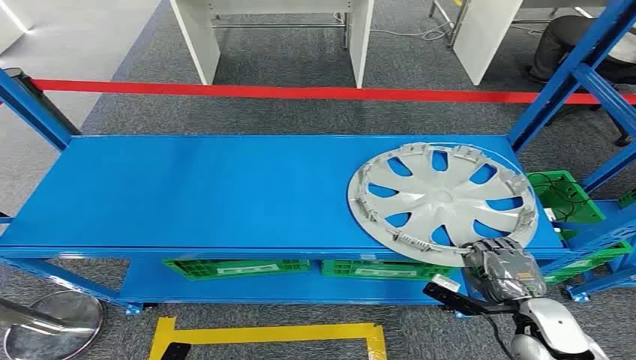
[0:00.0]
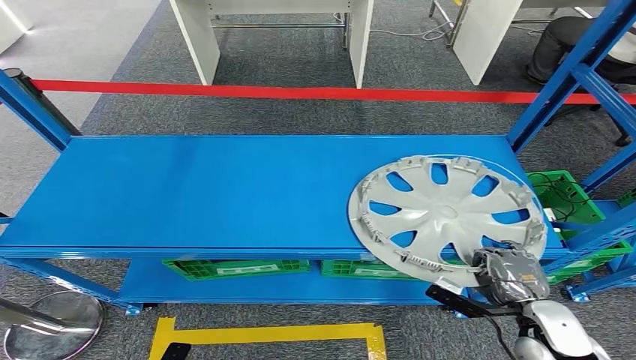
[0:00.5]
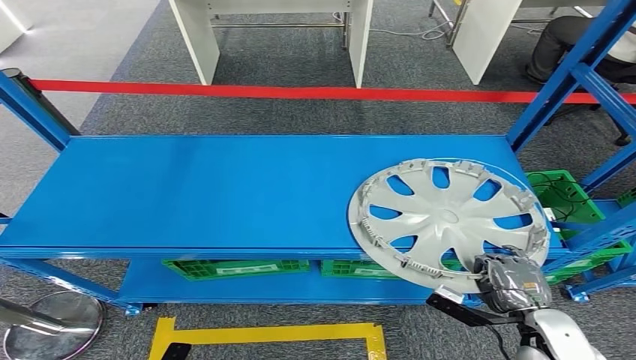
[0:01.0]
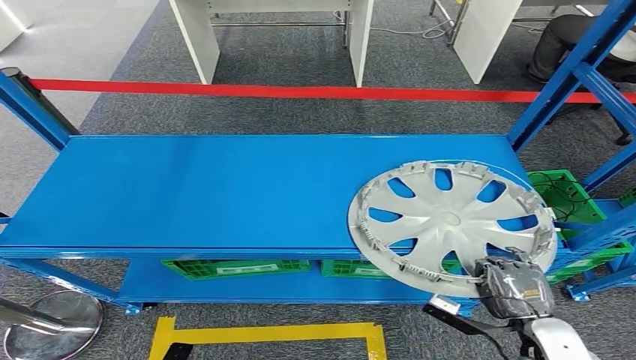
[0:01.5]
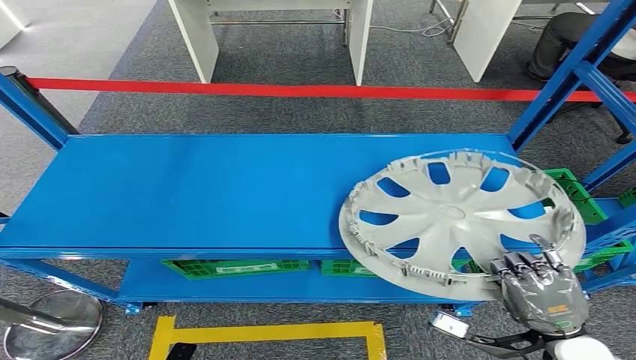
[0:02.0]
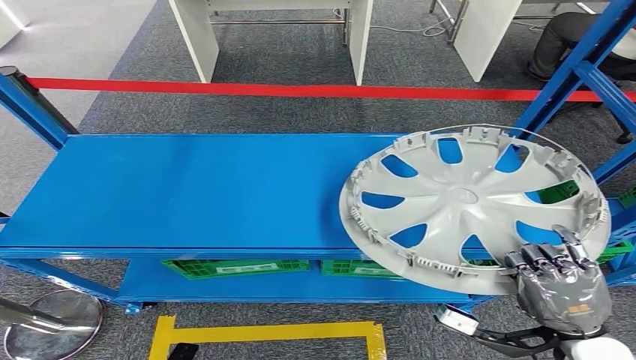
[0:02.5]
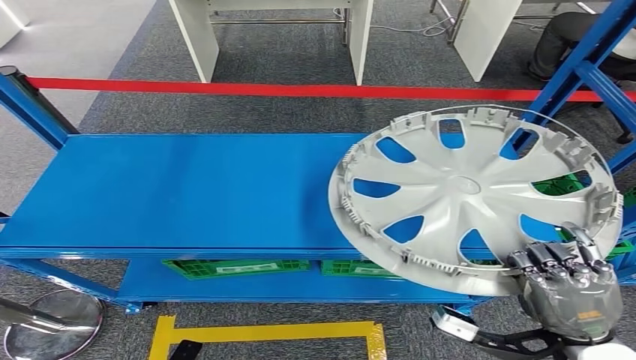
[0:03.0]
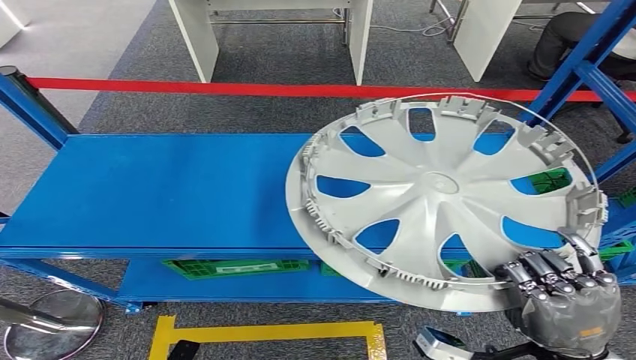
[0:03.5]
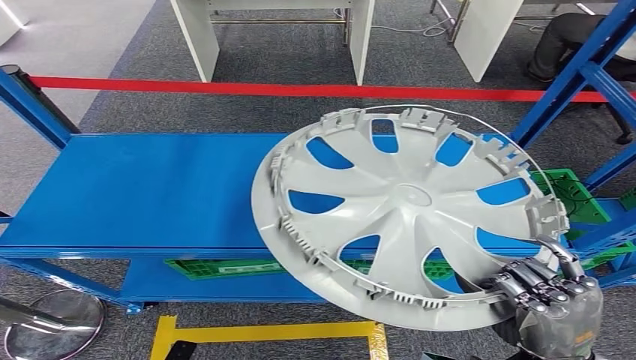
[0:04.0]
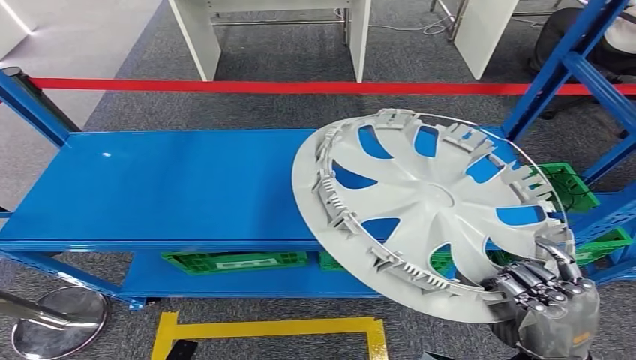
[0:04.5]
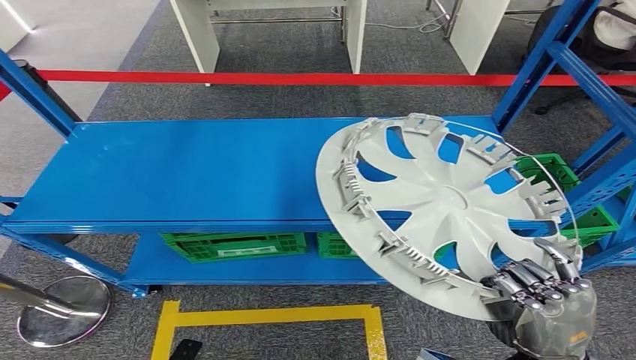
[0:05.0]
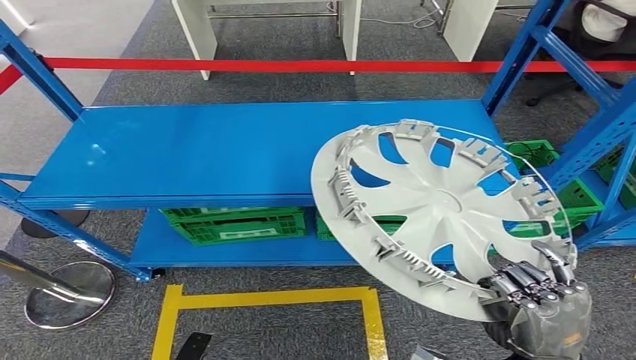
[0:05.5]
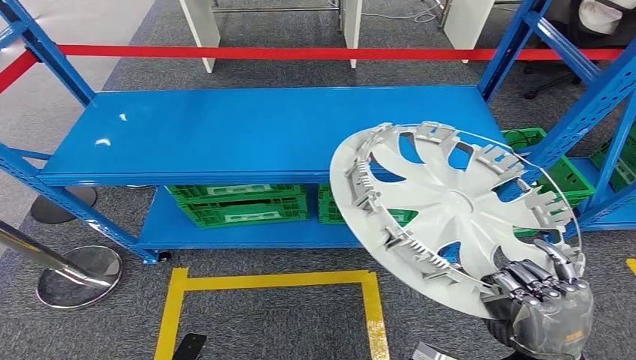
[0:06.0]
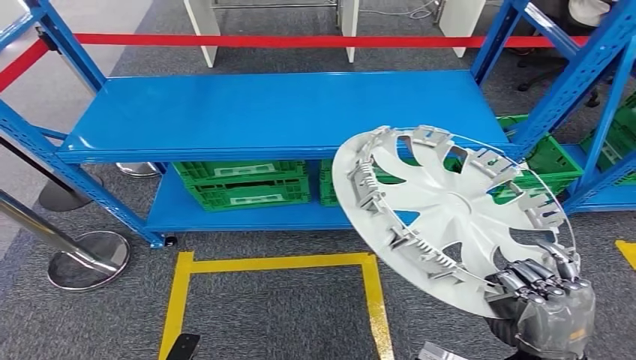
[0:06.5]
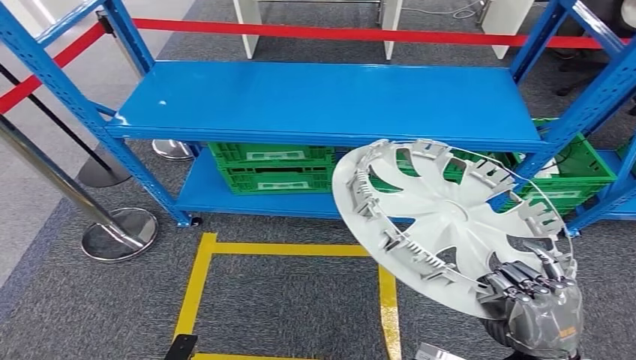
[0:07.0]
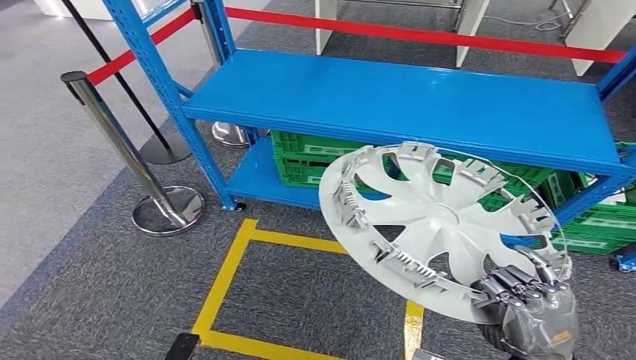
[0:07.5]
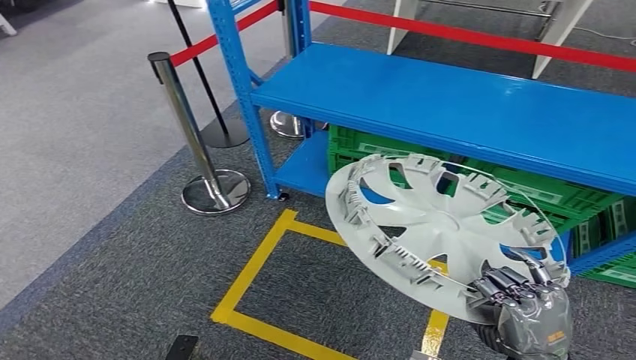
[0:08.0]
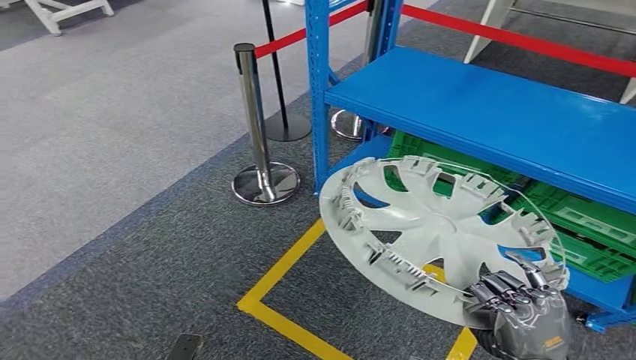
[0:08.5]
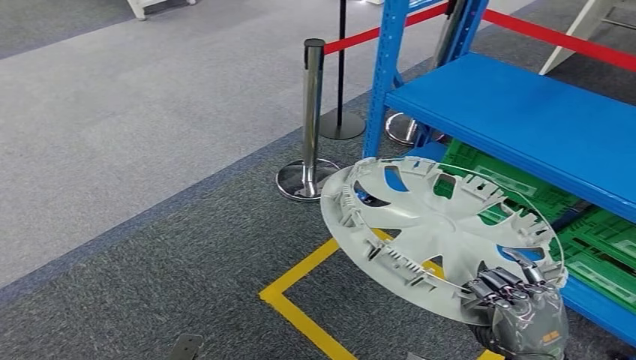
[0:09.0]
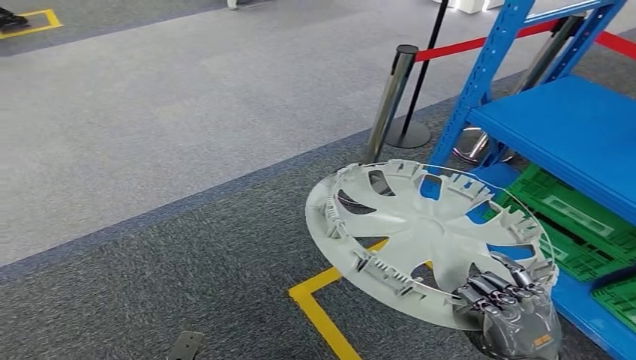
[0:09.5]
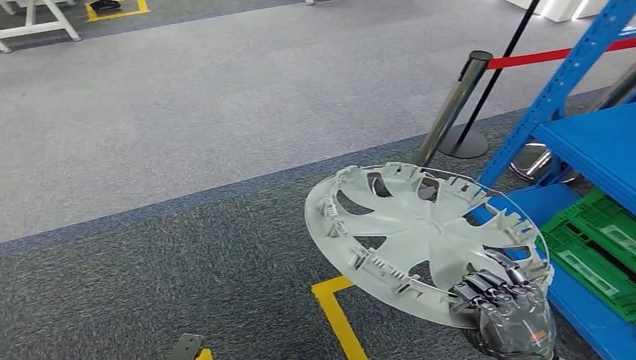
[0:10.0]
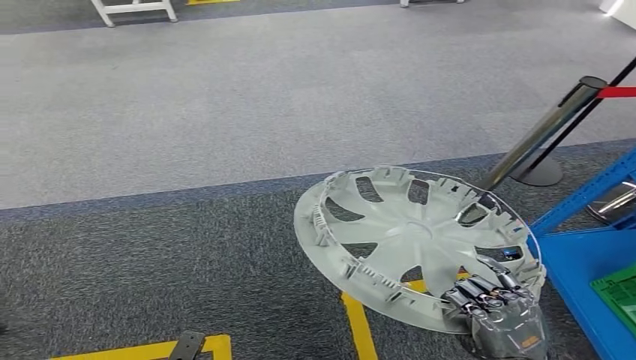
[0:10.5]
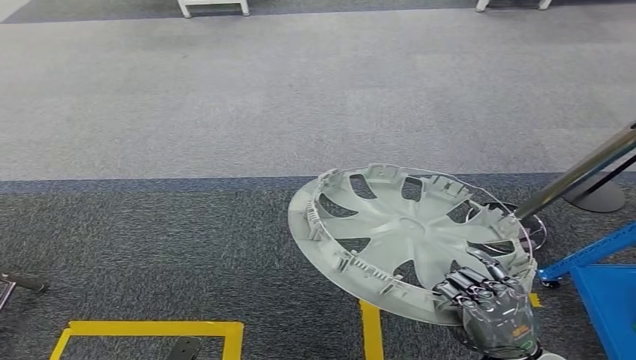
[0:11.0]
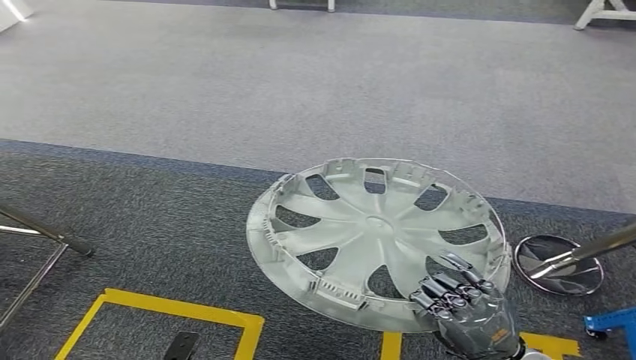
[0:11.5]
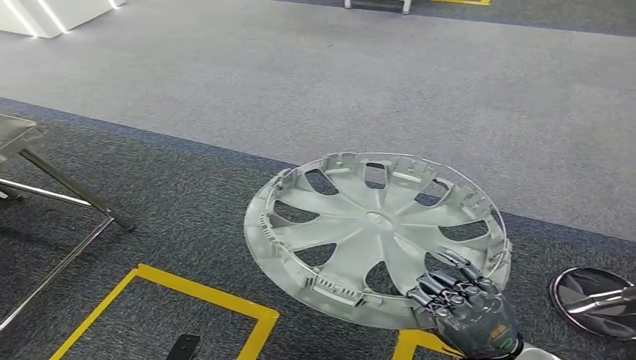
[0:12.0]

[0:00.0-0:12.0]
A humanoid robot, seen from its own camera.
Step, 0:00.0 to 0:03.5: Pick up the small component from the shelf.

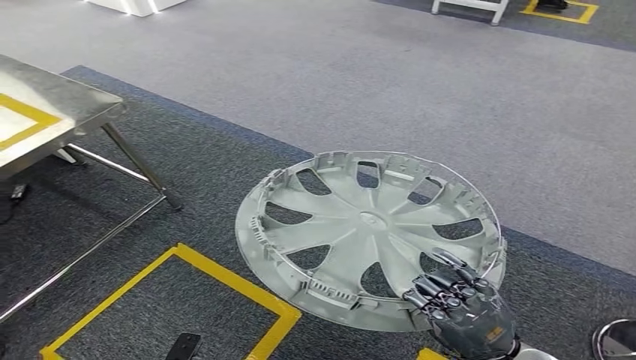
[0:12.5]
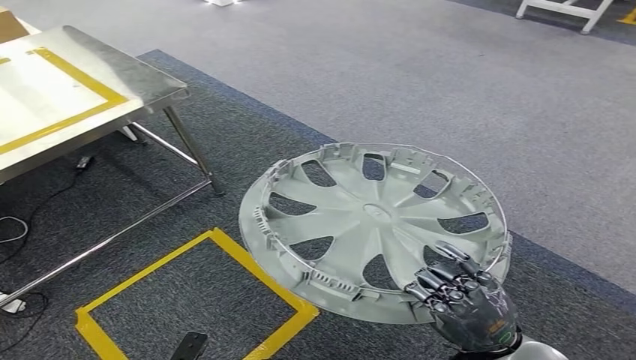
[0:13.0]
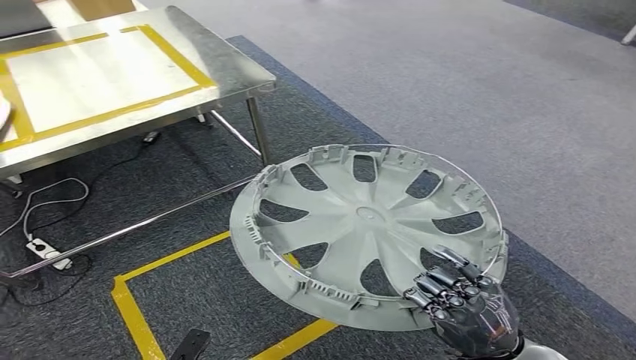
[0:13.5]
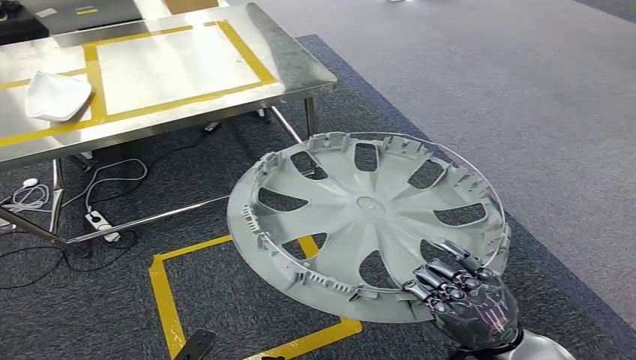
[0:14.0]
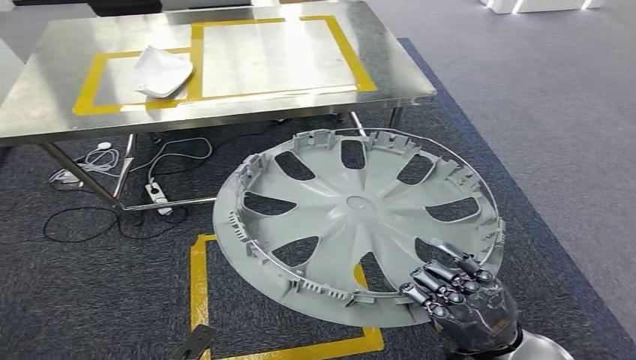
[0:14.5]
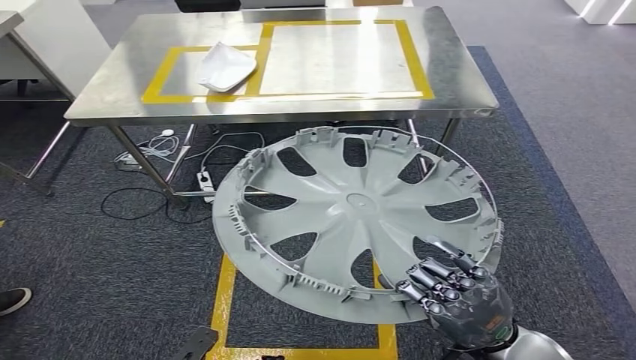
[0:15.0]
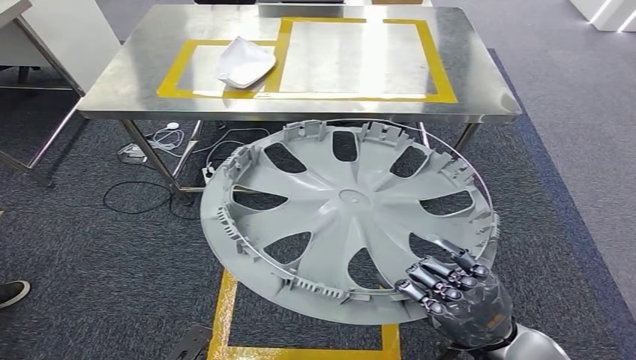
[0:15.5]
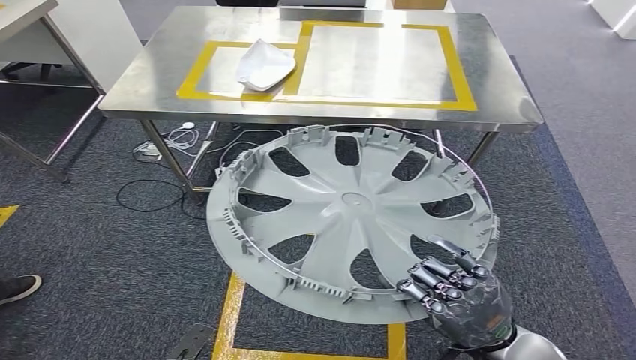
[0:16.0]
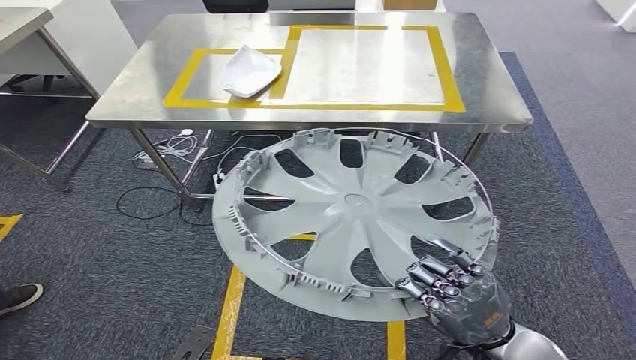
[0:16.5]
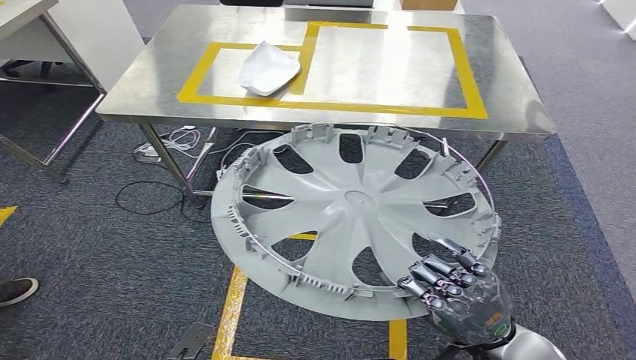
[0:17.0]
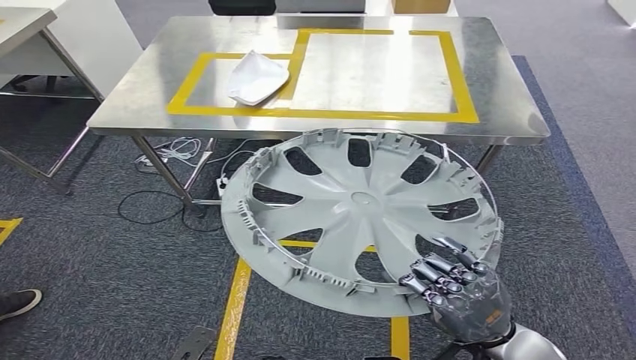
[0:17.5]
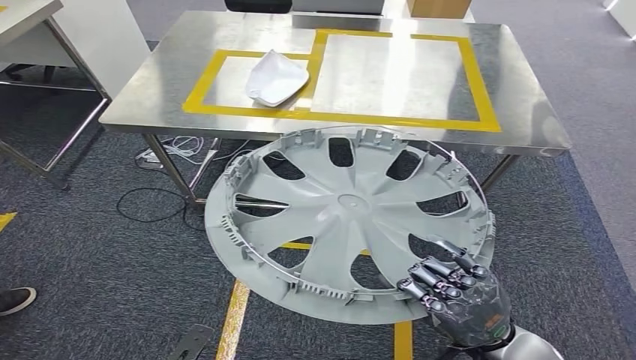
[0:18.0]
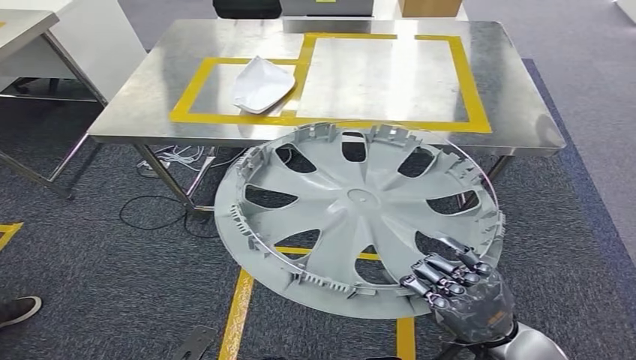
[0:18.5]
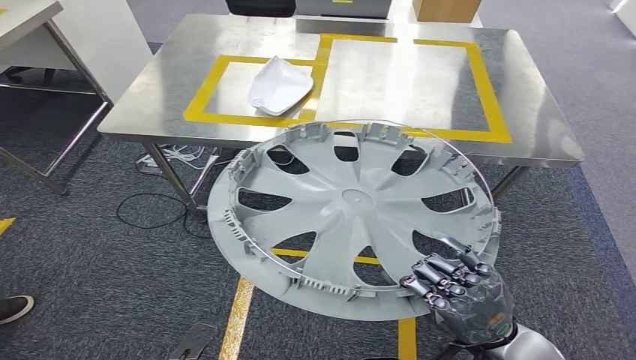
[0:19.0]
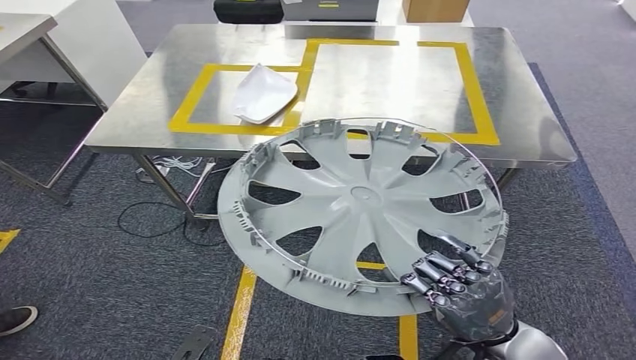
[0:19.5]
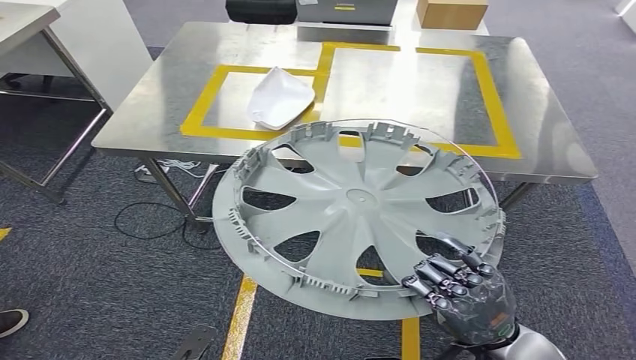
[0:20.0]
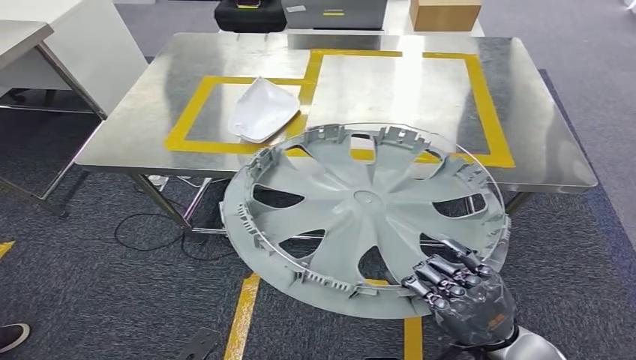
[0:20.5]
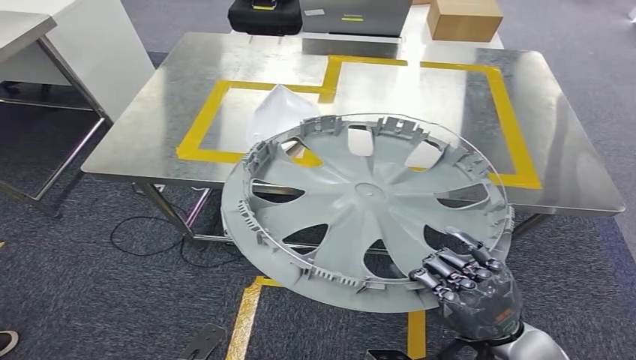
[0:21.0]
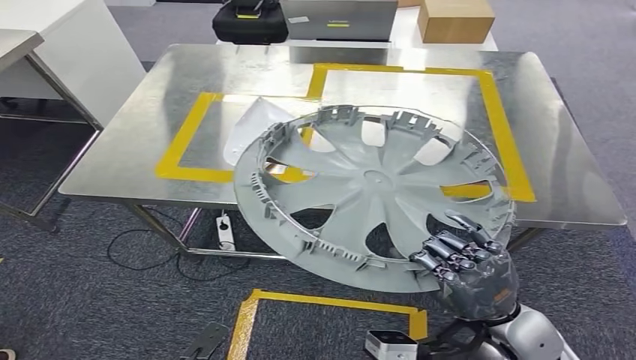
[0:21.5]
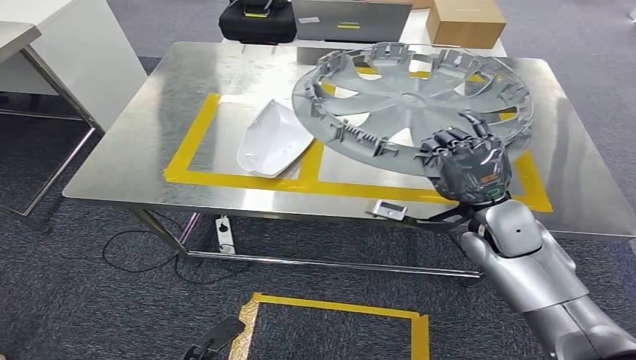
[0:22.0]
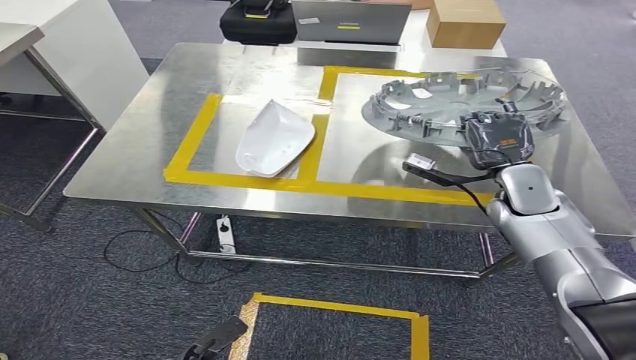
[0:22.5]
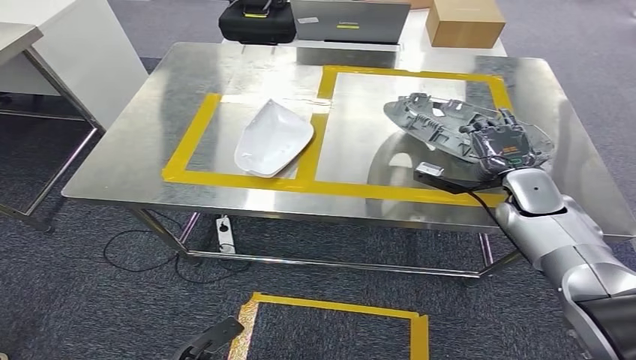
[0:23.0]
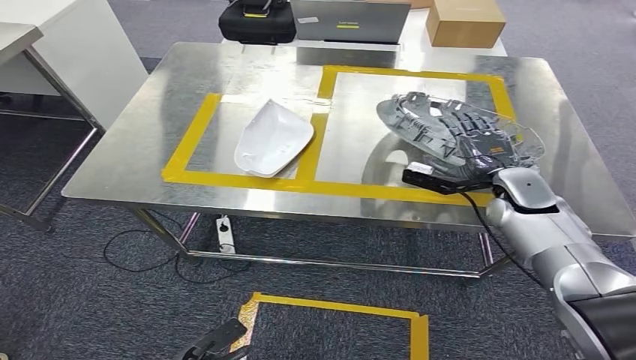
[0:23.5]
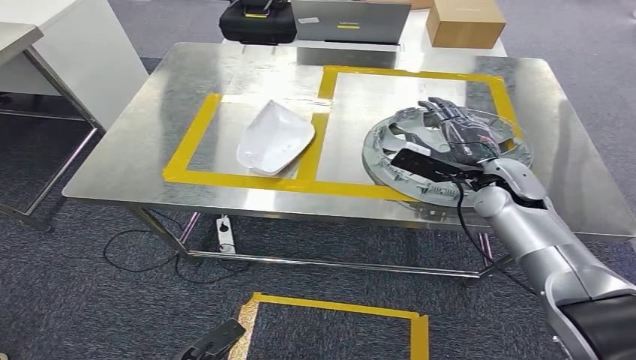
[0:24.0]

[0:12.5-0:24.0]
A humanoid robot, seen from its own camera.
Step, 0:12.5 to 0:19.5: Bring the small component to the front of the workbench.
0:22.0 to 0:24.0: The right hand heads forward, covering some 10 cm.
